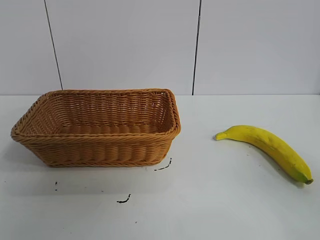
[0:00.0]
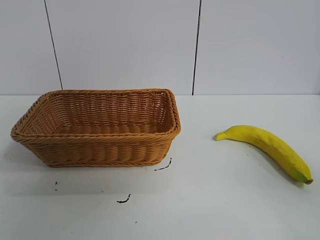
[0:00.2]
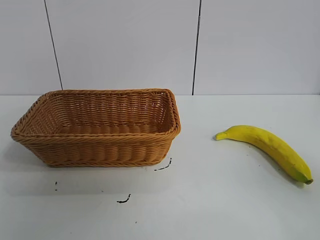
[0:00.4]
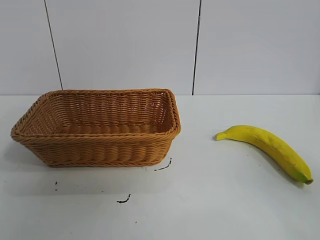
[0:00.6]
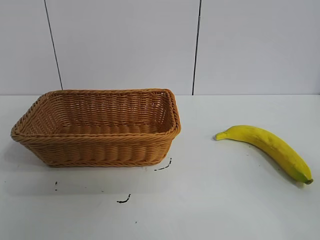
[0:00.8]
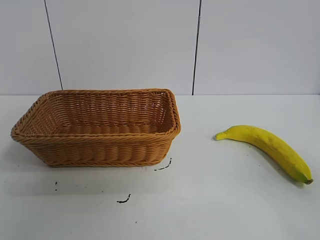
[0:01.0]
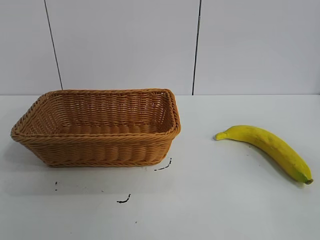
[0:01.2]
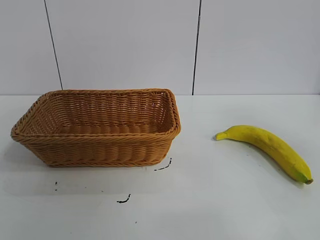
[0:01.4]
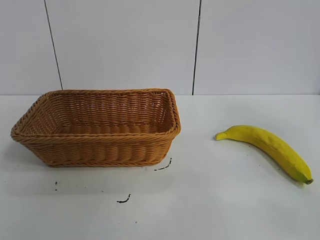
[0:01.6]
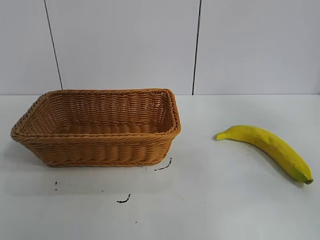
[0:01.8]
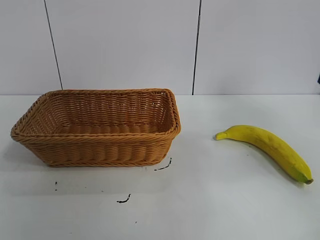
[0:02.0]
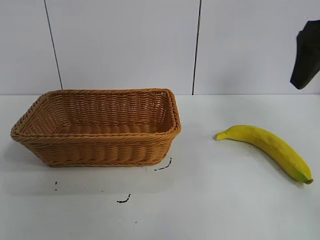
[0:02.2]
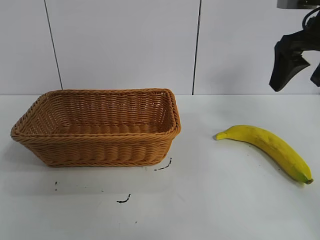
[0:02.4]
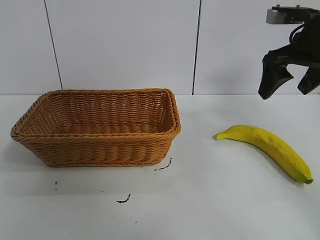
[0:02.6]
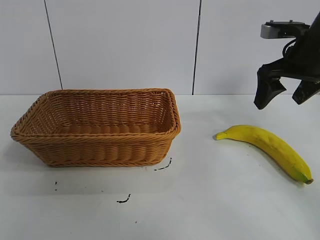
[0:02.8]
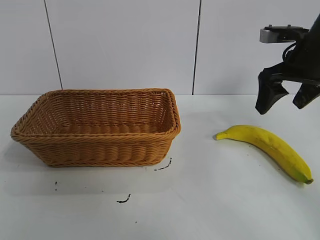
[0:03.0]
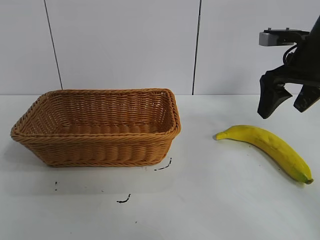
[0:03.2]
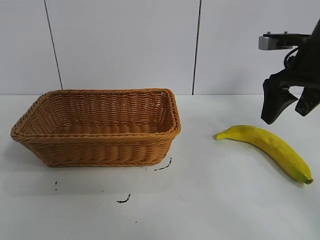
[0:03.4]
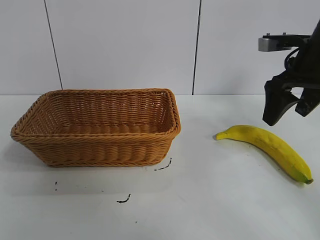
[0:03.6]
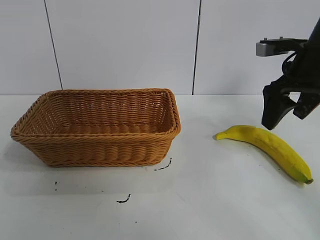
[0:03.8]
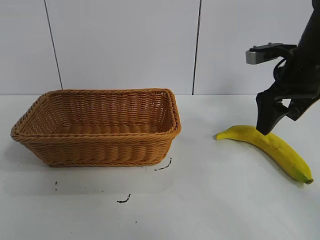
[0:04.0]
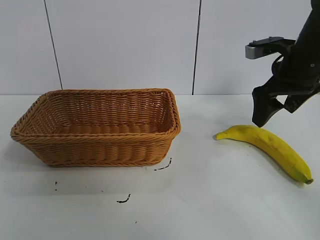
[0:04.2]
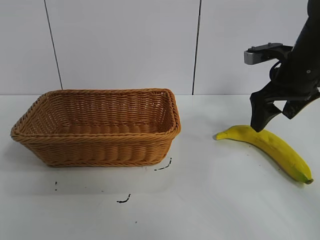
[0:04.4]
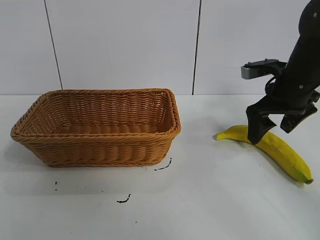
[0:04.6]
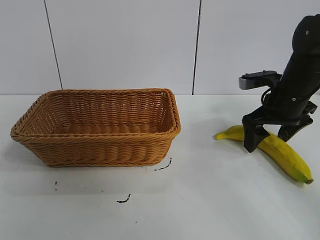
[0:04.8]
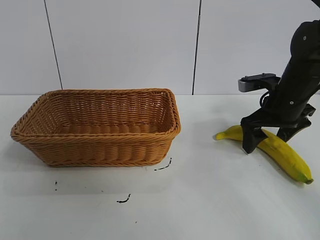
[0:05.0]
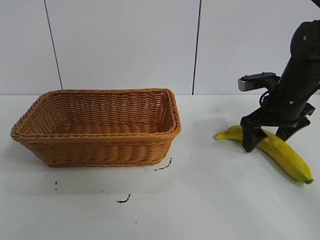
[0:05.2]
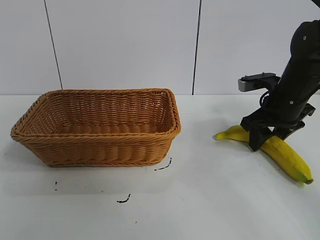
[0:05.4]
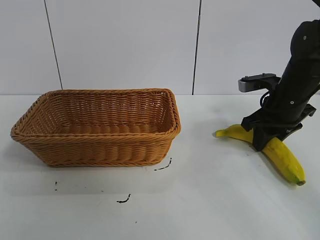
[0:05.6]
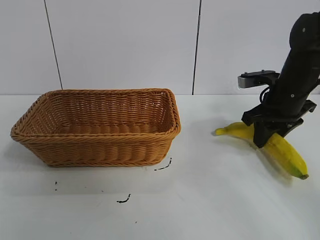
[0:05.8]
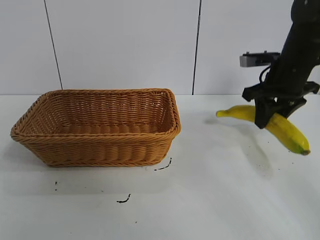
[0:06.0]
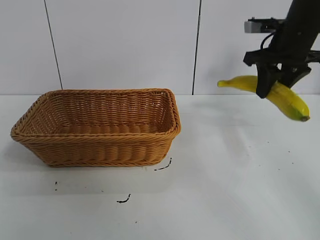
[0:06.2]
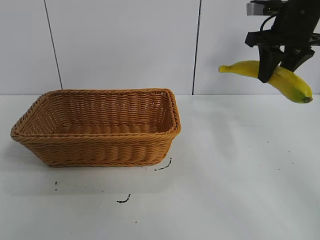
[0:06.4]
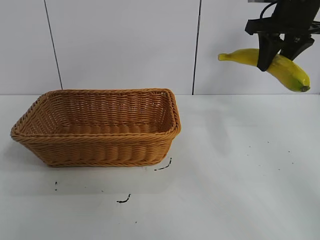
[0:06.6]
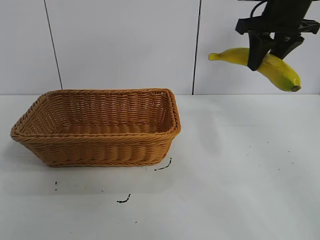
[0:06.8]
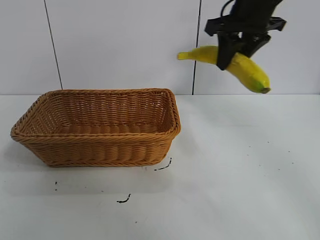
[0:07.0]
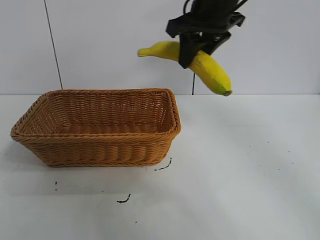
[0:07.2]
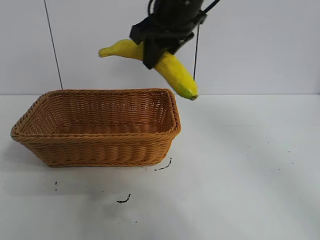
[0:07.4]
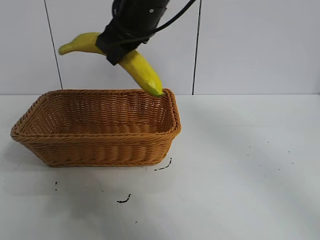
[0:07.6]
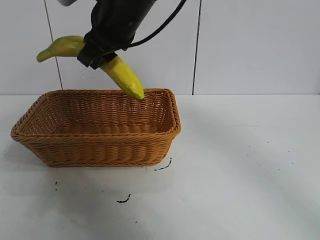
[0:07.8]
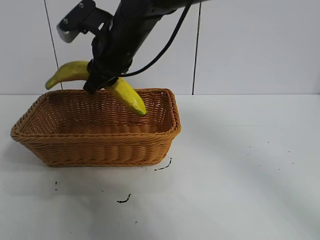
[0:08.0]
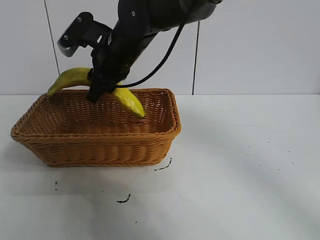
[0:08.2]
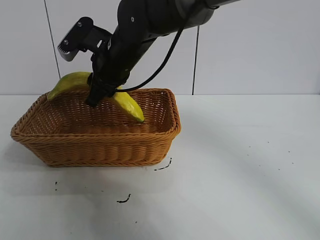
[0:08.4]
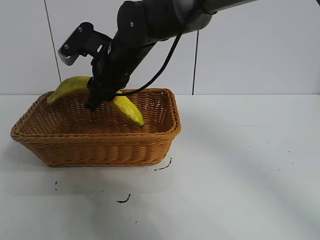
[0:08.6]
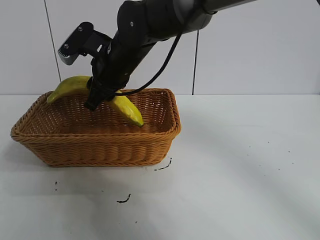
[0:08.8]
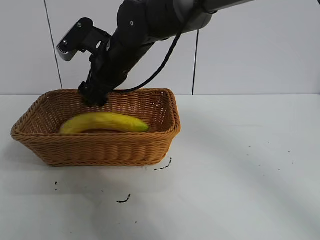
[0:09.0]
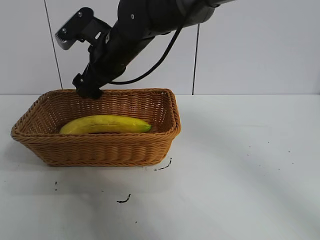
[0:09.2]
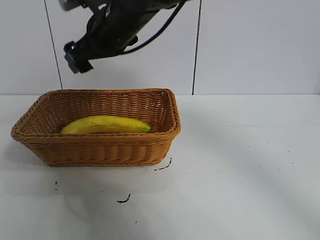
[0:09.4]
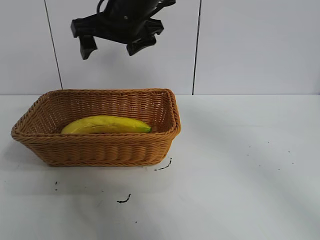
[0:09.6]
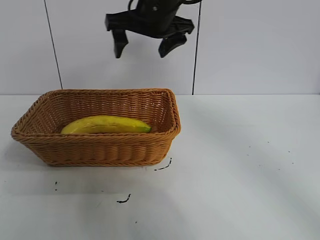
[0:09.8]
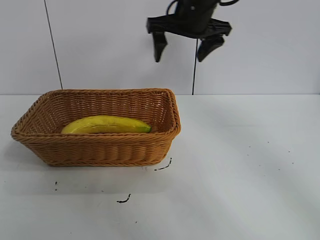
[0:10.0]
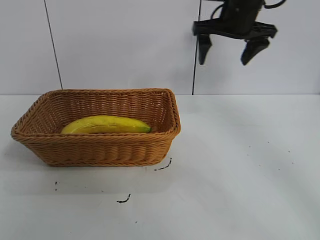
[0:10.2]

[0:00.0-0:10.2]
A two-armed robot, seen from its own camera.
Task of the whole recording: pick up the banana and put it into the basket.
Step, 0:00.8 to 0:05.4: Grasp the banana with right gripper.
Step, 0:05.6 to 0:09.0: Place the banana in the basket with right gripper.
